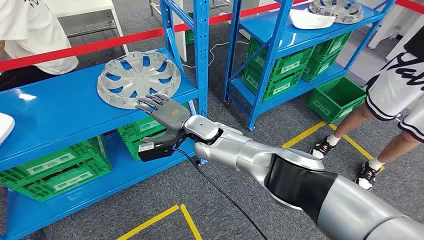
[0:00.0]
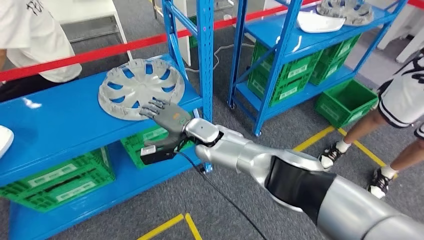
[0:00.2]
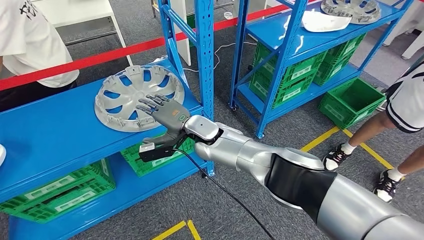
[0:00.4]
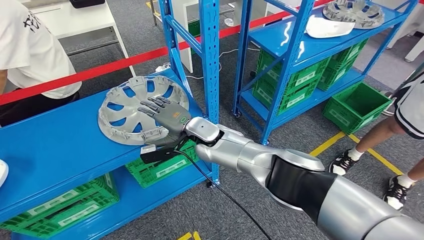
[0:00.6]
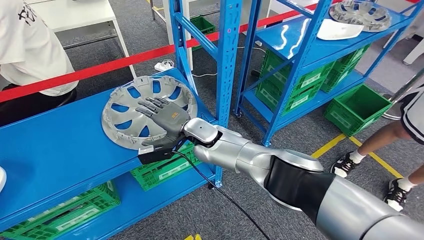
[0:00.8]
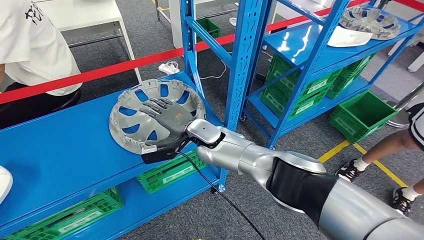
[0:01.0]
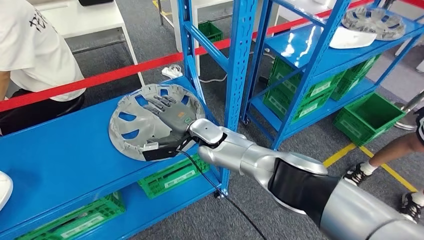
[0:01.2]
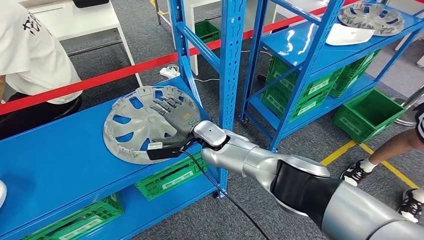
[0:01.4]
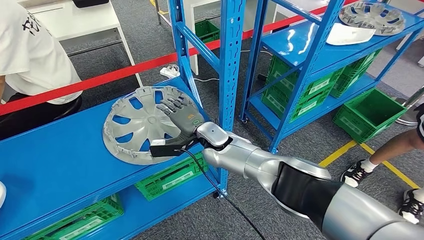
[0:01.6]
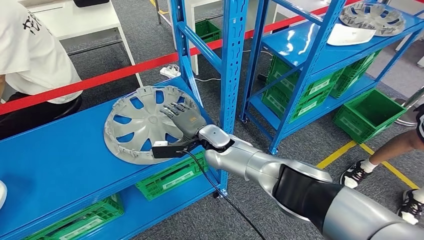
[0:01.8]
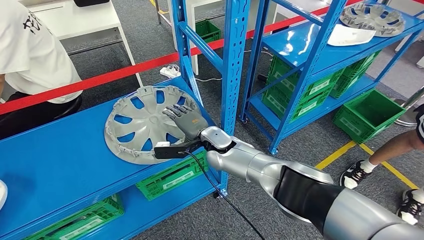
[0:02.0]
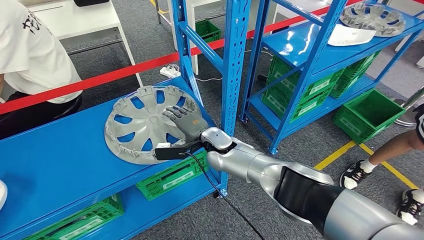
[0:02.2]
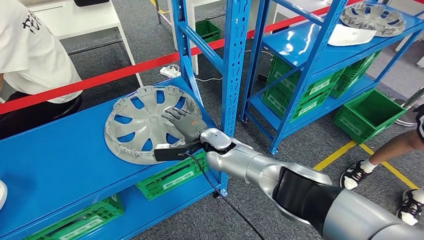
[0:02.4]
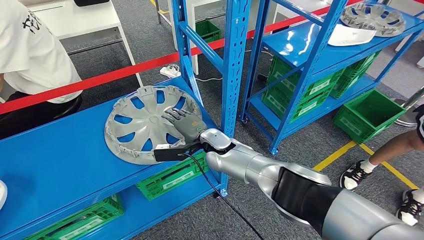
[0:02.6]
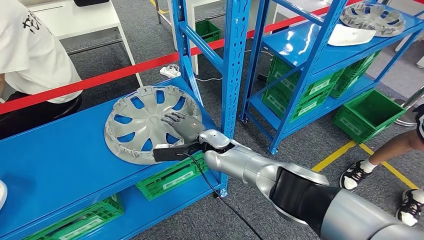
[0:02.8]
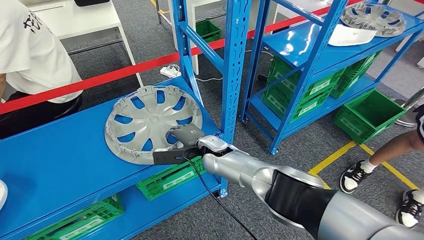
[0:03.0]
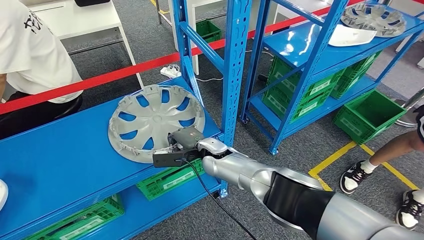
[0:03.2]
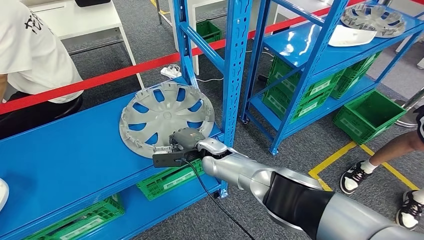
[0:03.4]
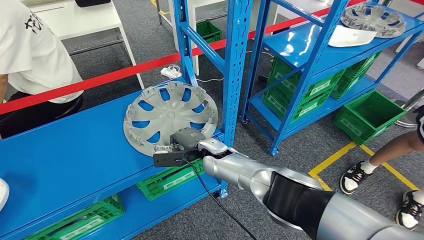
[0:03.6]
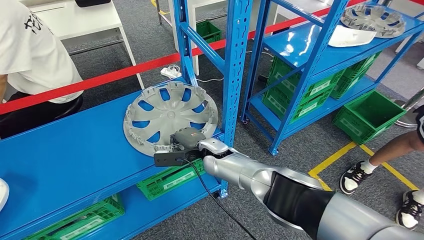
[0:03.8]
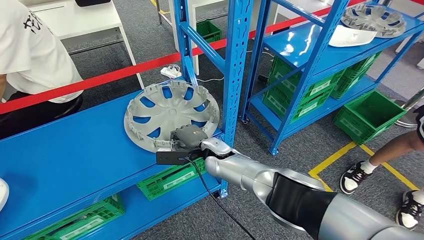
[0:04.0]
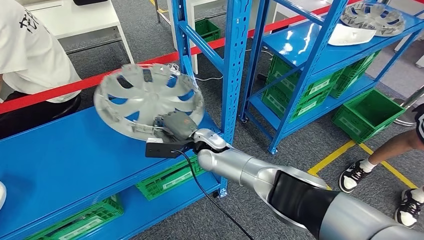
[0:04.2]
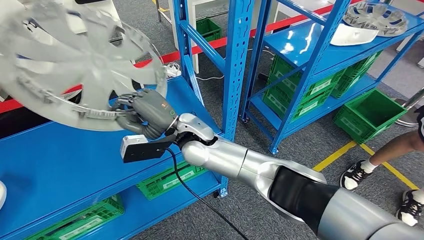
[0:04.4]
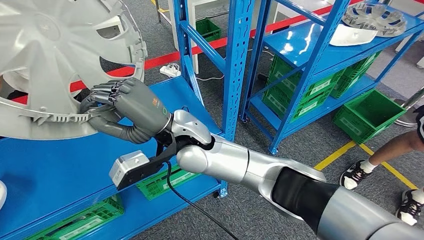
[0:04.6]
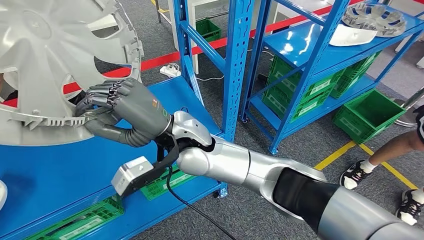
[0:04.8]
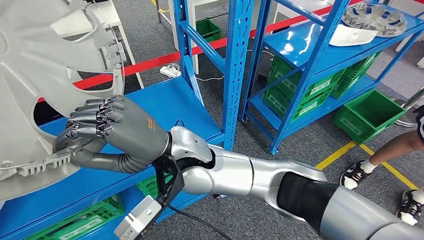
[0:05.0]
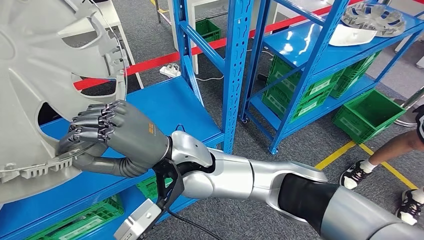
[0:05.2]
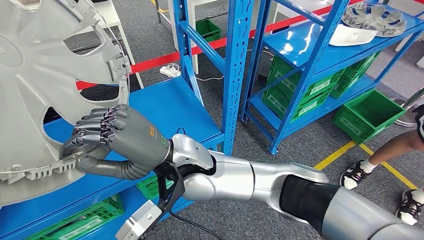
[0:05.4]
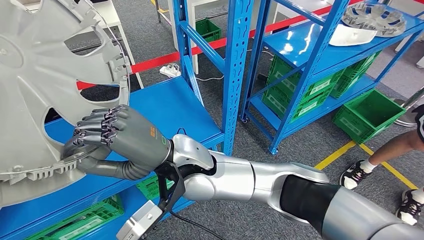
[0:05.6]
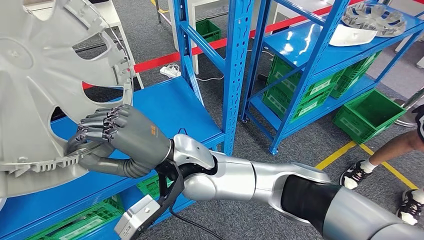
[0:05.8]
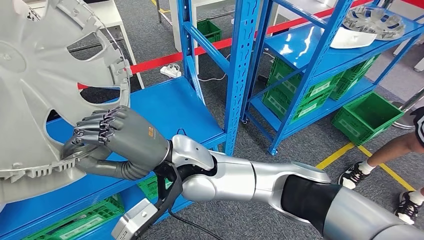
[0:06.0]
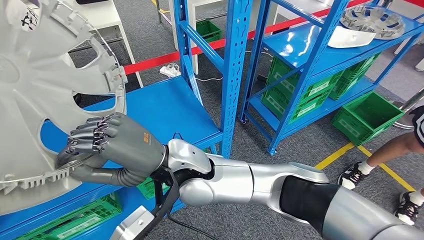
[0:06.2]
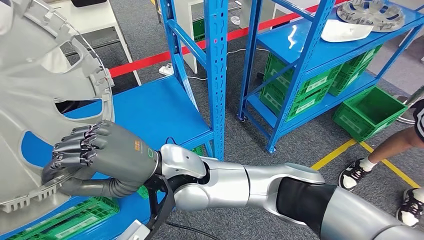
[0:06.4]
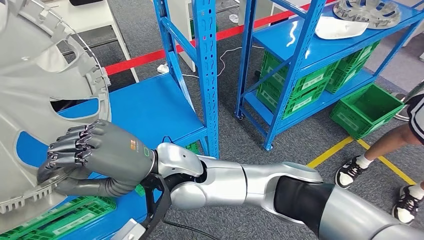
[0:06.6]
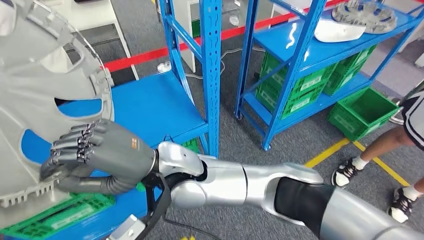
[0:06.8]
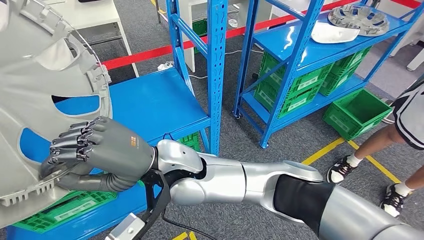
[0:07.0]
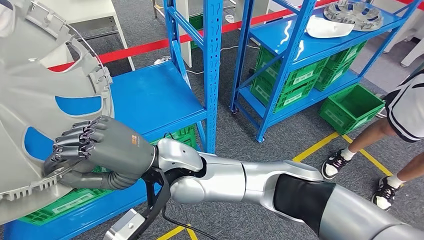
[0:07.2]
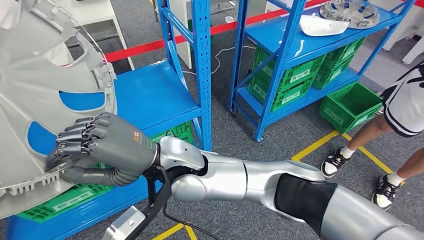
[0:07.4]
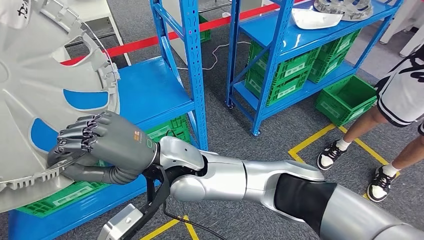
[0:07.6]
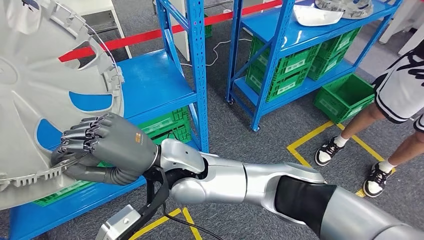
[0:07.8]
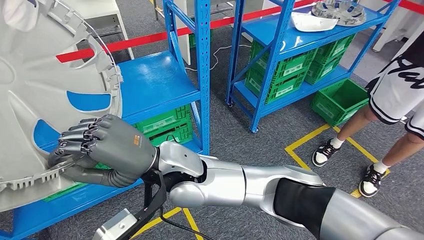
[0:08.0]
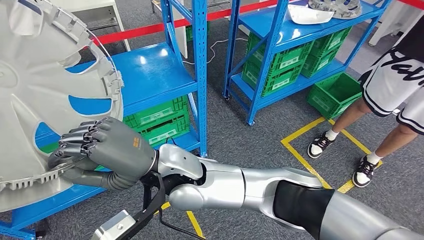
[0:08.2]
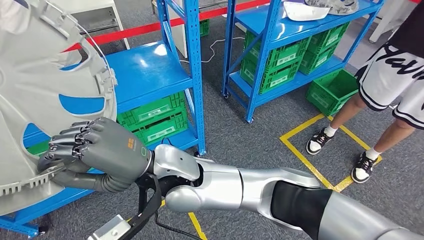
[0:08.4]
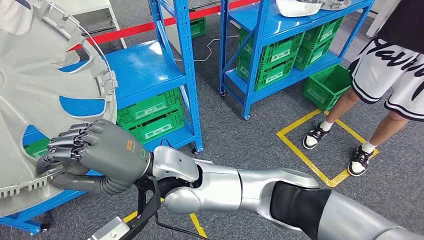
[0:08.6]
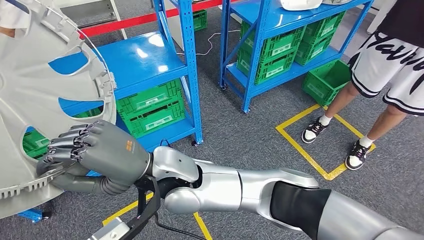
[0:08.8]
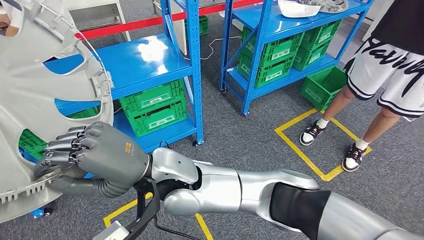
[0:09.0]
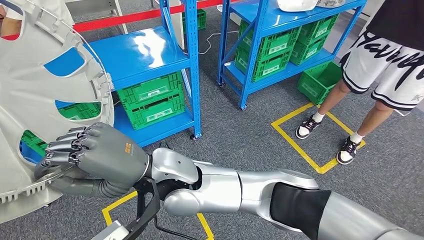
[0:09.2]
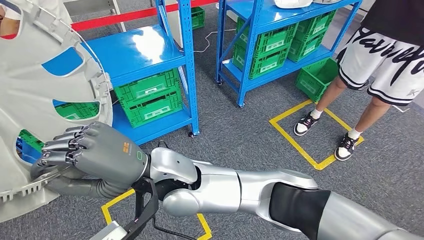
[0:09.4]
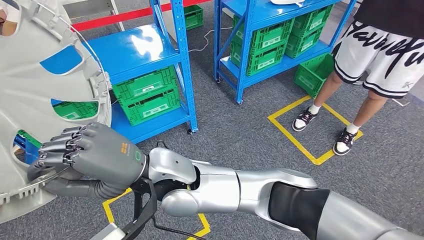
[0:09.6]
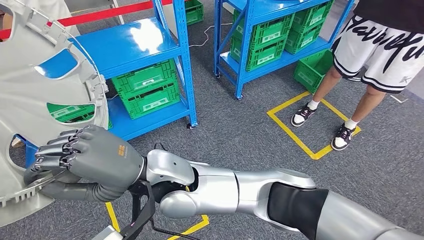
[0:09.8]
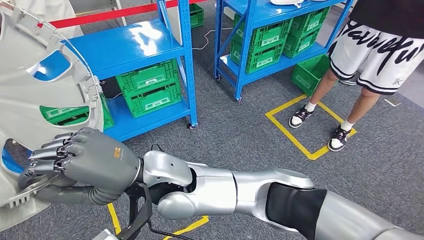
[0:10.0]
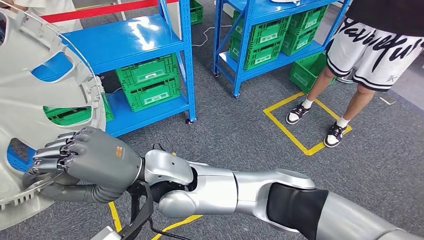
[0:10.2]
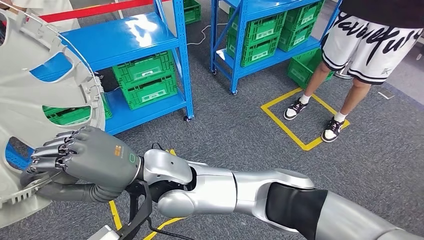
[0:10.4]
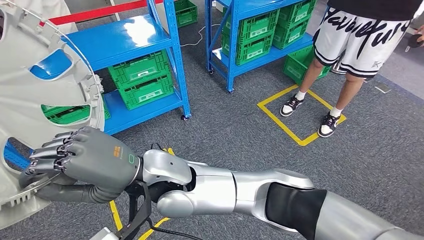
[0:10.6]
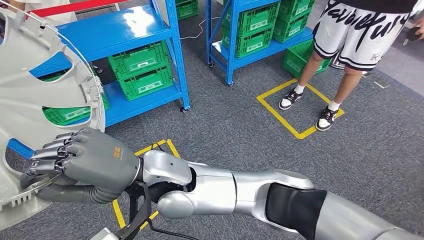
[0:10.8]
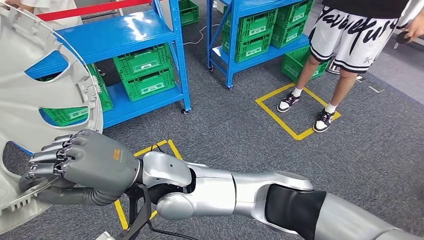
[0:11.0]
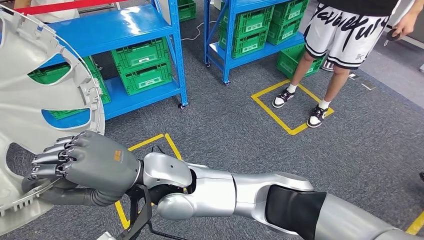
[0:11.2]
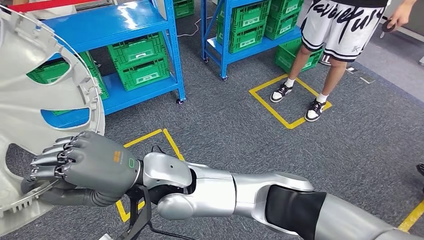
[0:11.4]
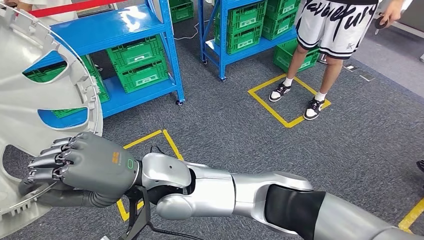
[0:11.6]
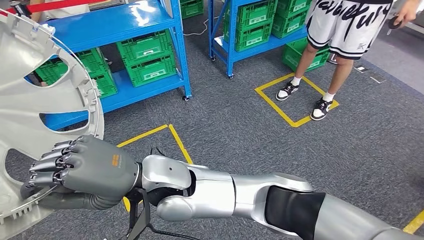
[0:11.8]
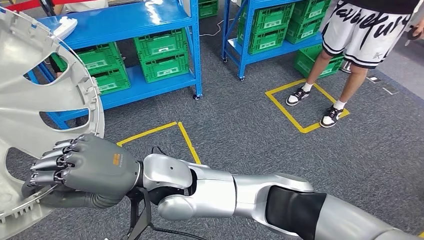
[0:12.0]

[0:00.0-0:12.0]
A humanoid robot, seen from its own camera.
Step, 0:00.0 to 0:07.2: Pick up the small component from the shelf.

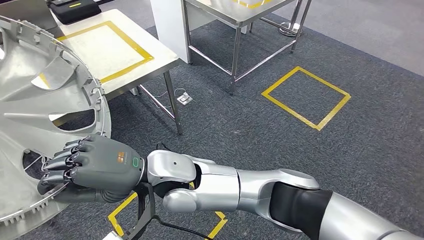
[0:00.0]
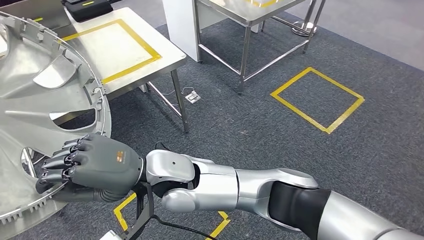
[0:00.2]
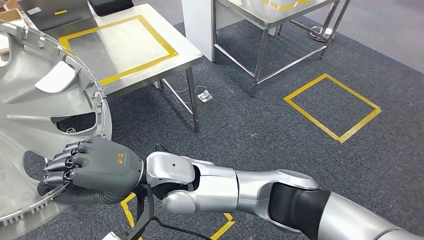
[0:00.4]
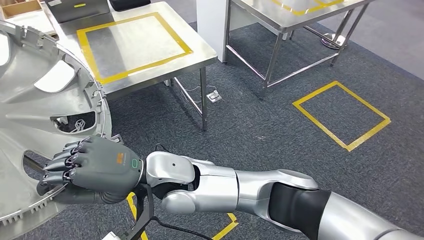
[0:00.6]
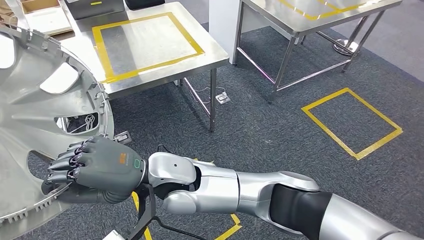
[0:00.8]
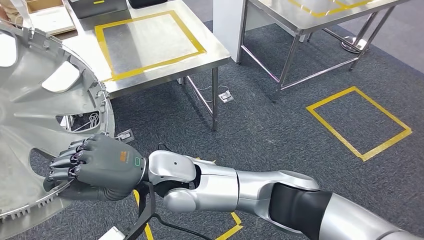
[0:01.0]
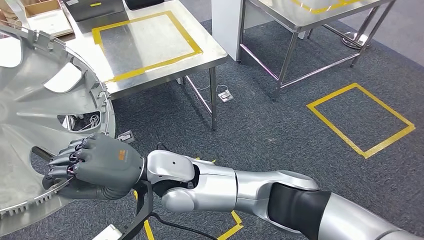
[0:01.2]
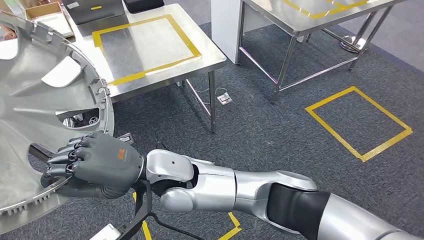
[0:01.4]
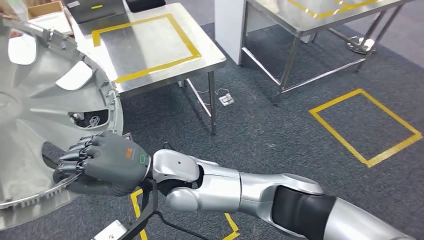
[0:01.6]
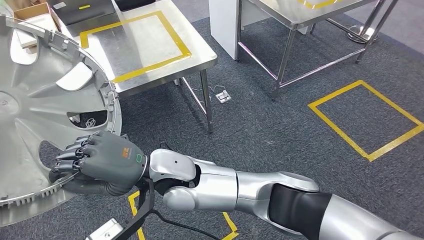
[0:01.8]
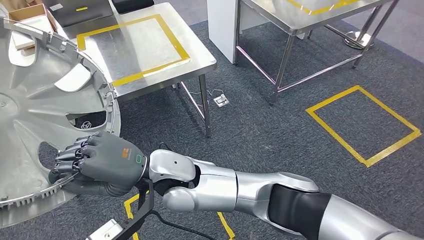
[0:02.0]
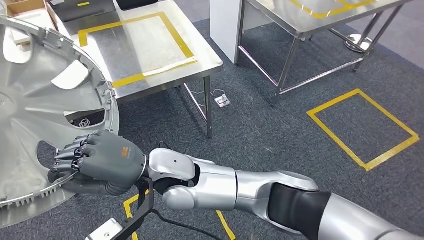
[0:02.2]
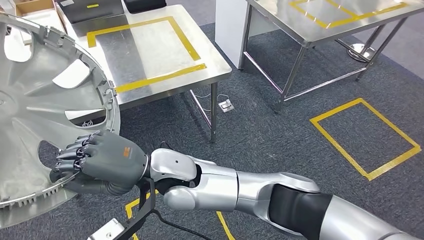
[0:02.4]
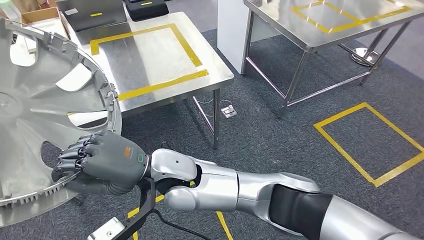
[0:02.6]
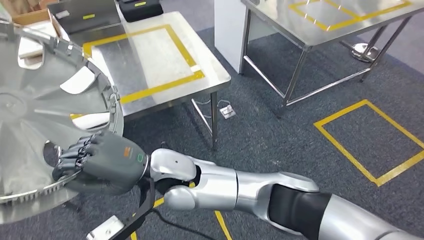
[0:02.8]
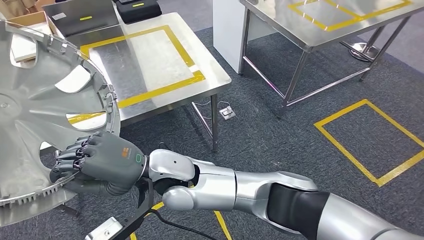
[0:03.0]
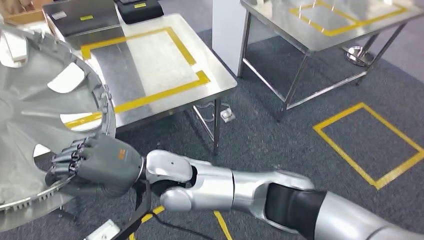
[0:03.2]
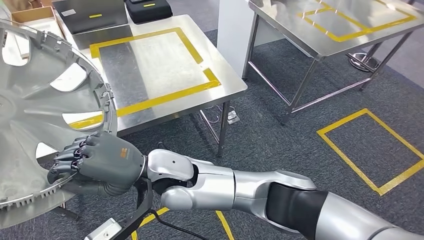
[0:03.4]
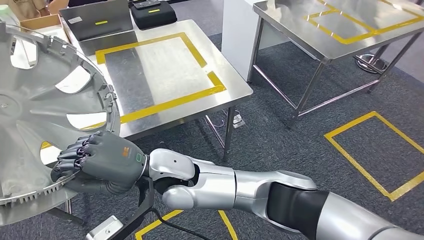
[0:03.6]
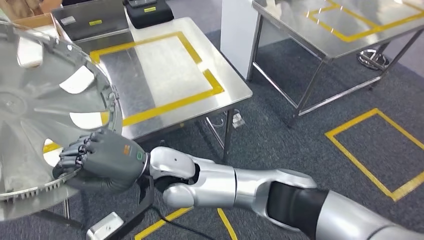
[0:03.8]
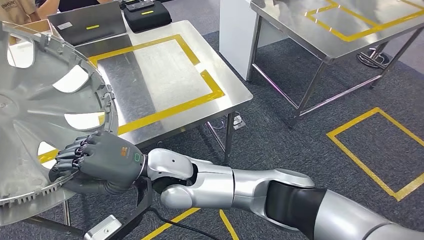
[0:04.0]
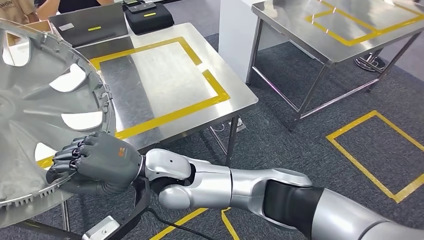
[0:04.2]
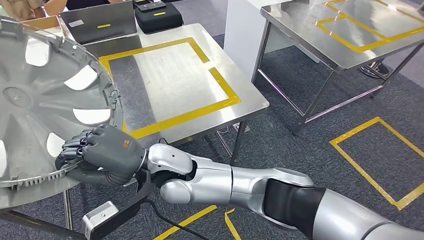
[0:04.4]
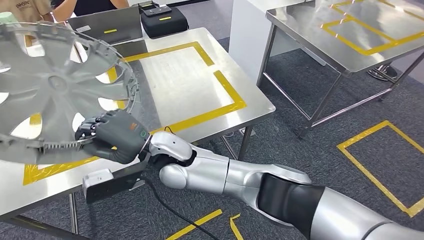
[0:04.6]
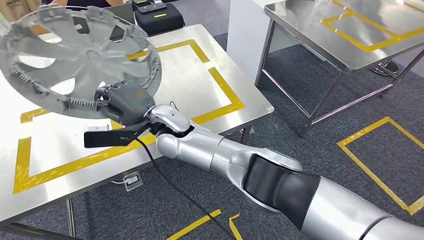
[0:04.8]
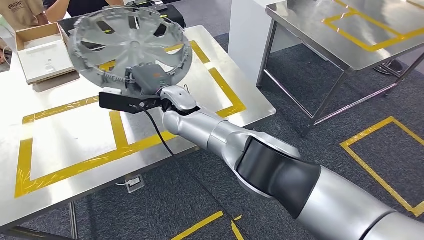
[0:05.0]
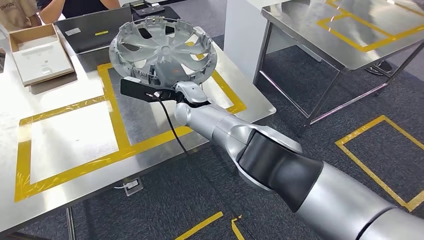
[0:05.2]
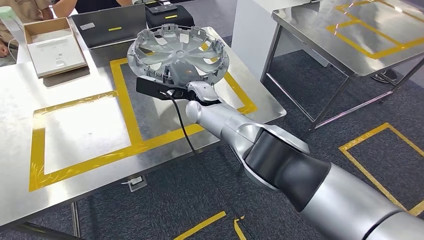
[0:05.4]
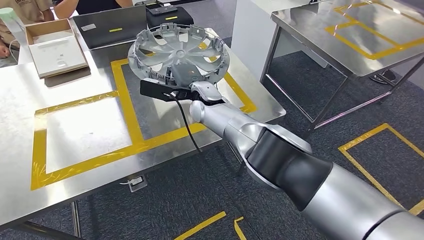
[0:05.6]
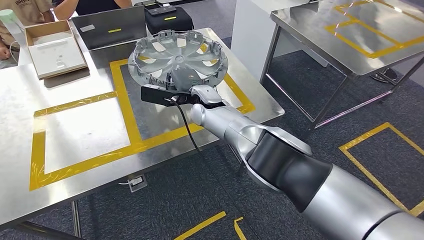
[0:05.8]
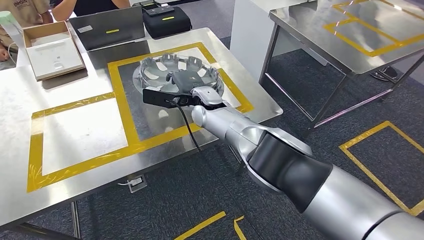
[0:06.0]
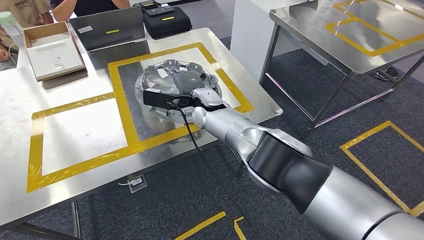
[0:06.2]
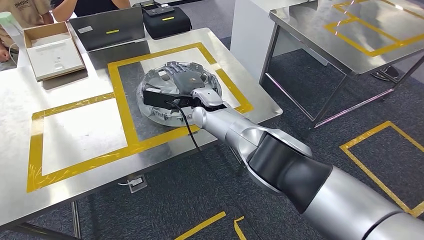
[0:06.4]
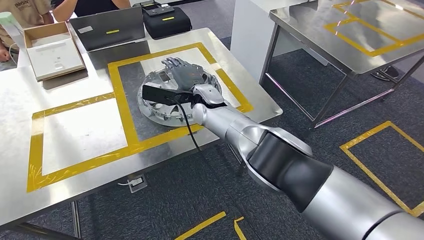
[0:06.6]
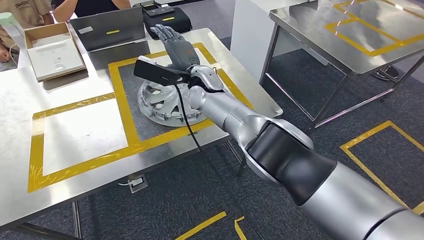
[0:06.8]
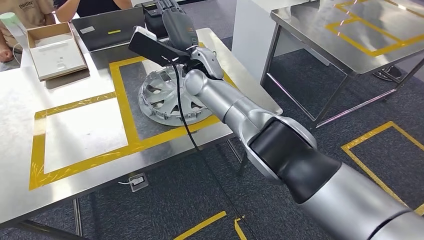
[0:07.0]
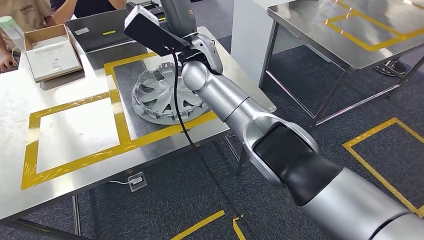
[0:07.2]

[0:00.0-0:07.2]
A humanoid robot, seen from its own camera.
Step, 0:02.6 to 0:06.8: Insert the small component into the corresponding slot on the workbench.
